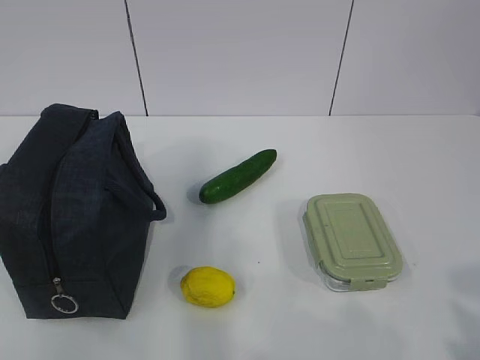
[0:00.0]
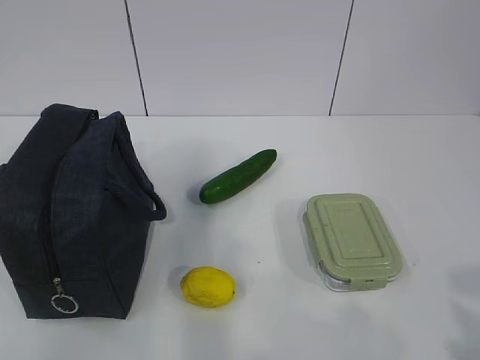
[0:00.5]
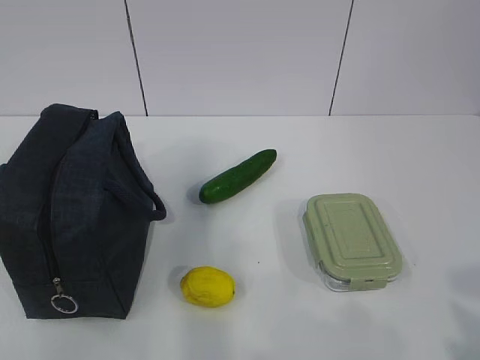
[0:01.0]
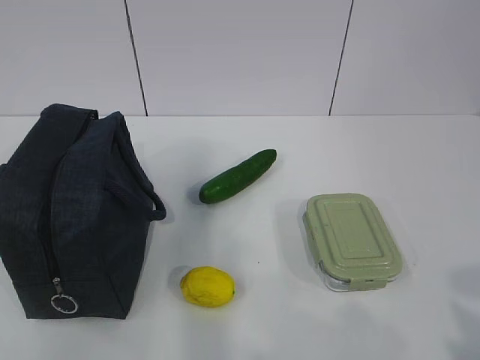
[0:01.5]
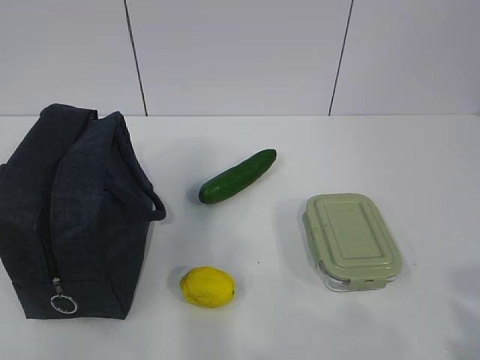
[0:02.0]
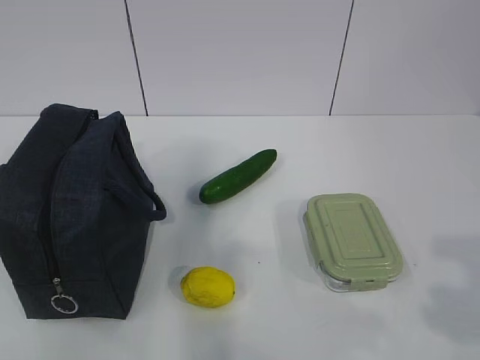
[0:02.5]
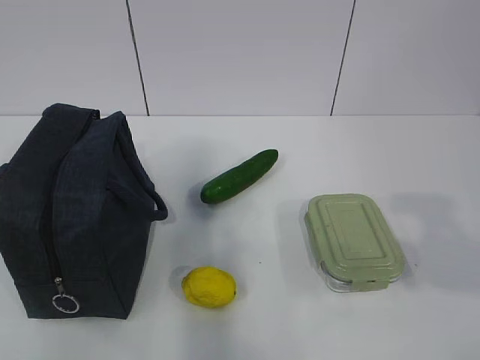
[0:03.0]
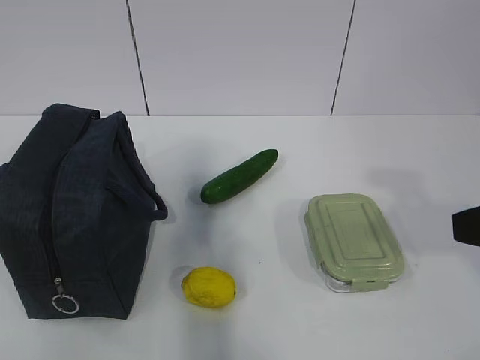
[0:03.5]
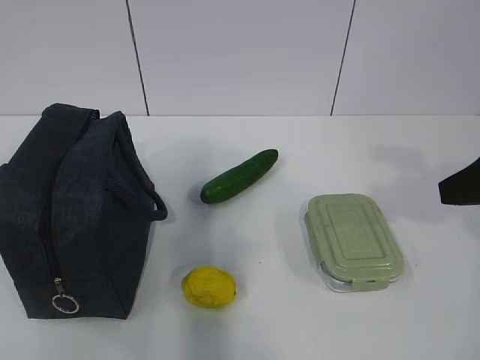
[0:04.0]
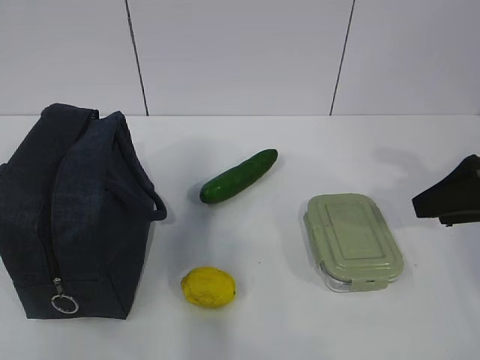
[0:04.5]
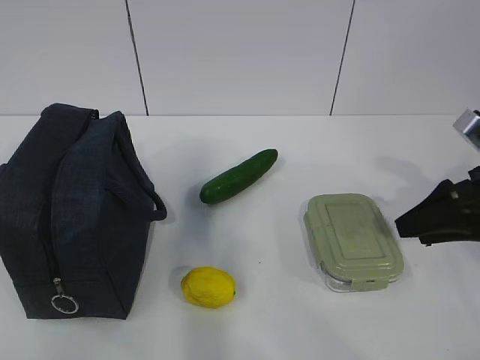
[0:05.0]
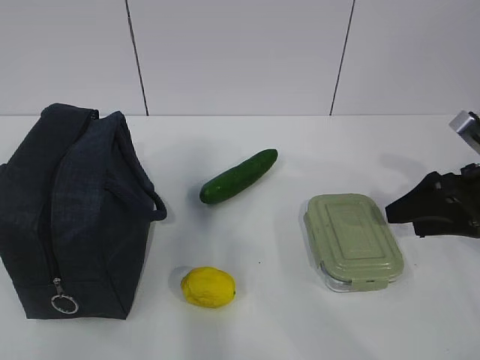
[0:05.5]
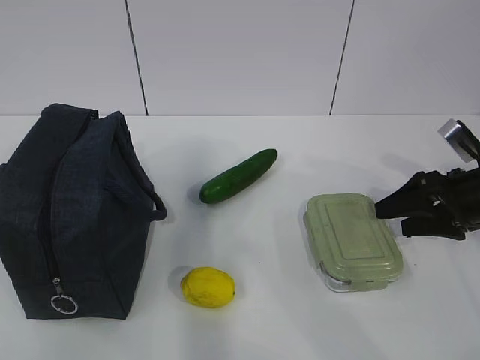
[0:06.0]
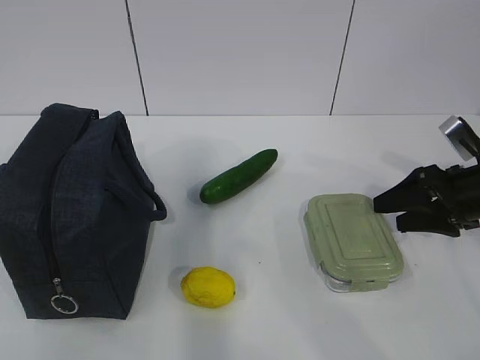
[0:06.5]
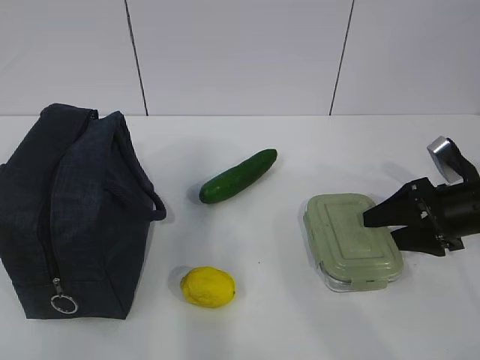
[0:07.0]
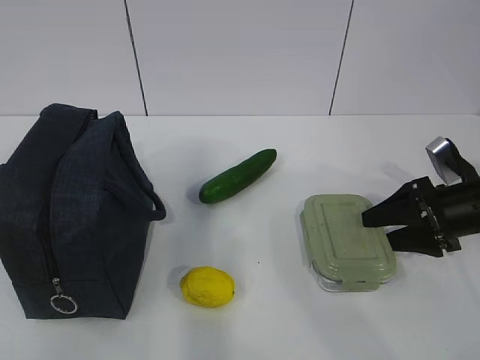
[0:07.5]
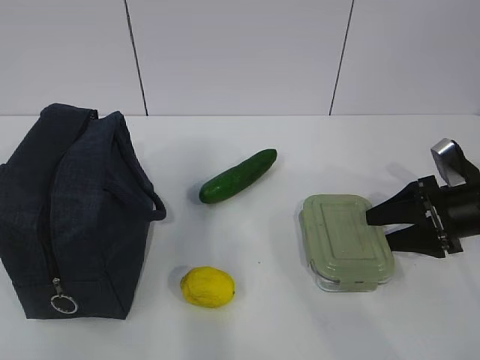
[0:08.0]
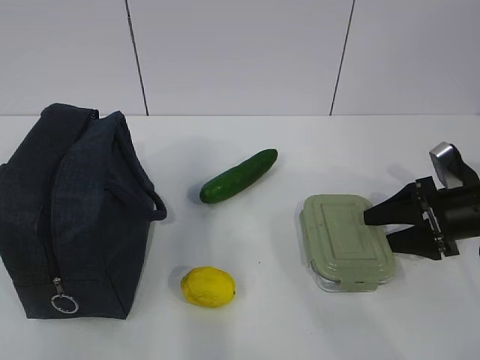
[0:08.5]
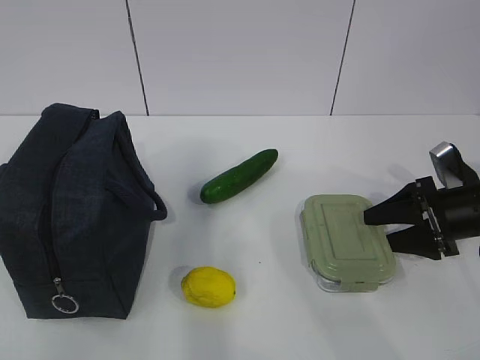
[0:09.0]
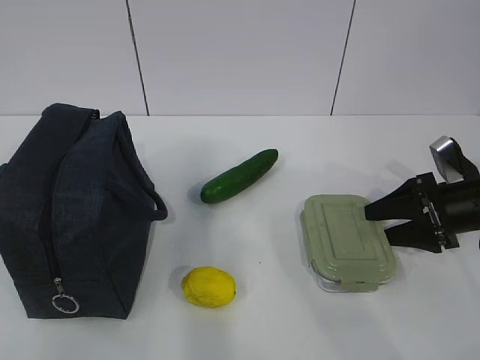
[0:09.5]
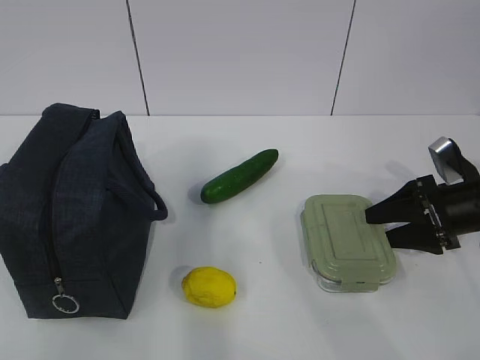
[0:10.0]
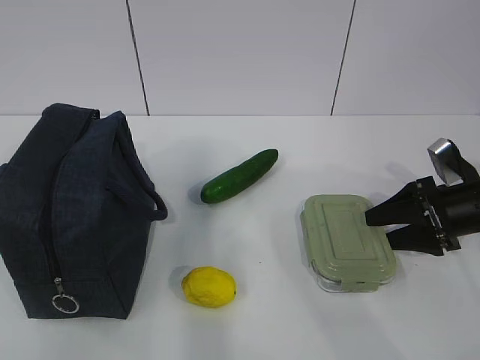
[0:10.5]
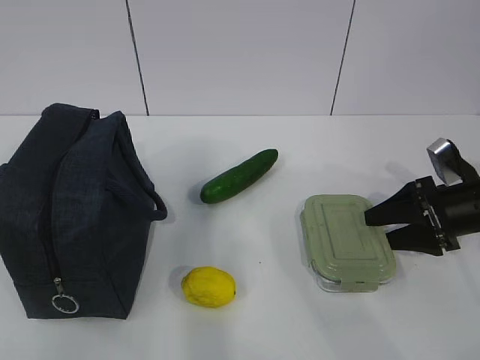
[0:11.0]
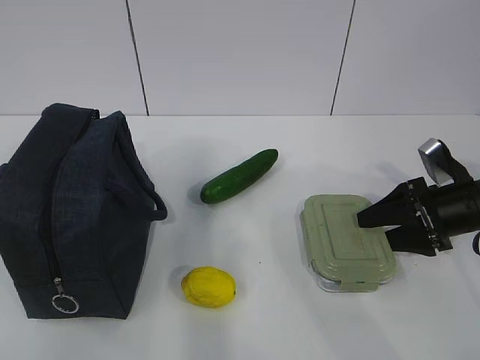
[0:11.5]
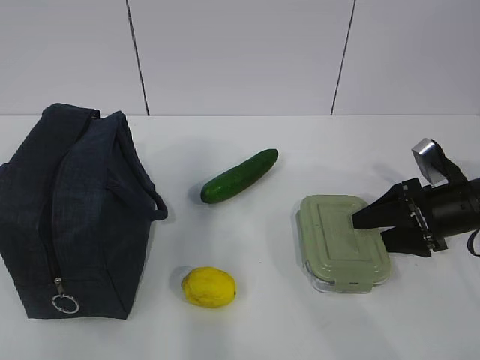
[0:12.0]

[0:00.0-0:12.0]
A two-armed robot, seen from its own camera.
0:02.0 to 0:04.0: The right gripper moves forward, some 20 cm.
0:04.0 to 0:06.0: The right gripper heads downward and forward, covering some 20 cm.
0:06.0 to 0:08.0: There are only small adjustments of the grippers.
0:08.0 to 0:10.0: The two grippers keep their place.
0:10.0 to 0:12.0: The grippers move only a little.

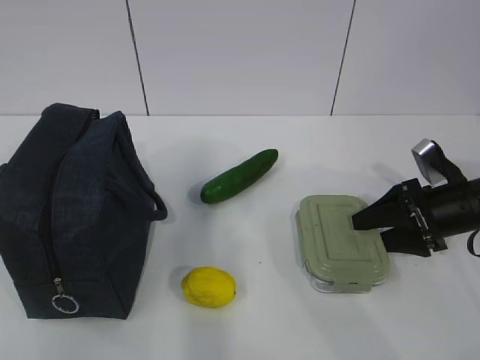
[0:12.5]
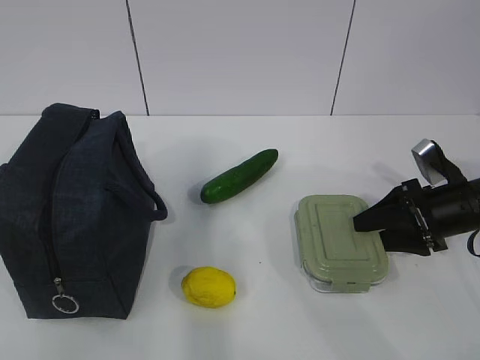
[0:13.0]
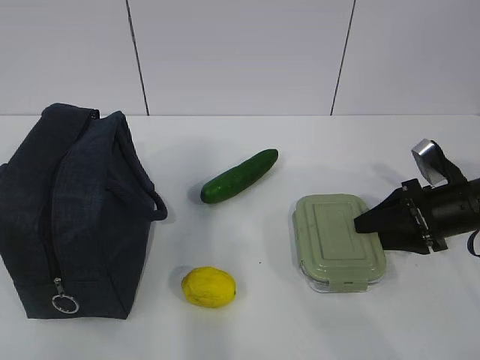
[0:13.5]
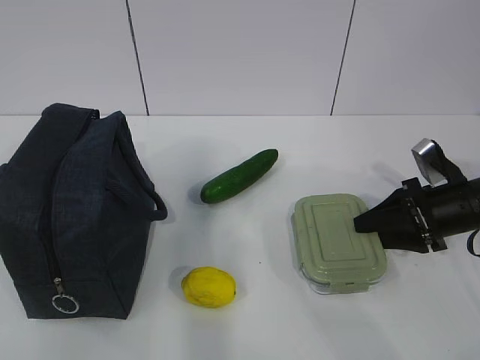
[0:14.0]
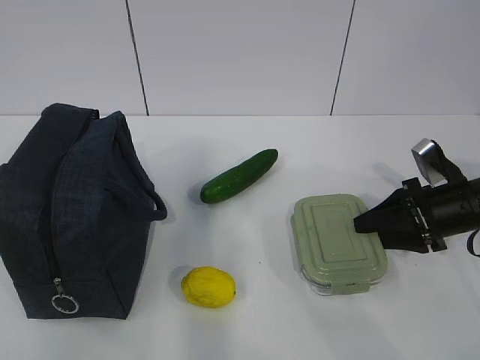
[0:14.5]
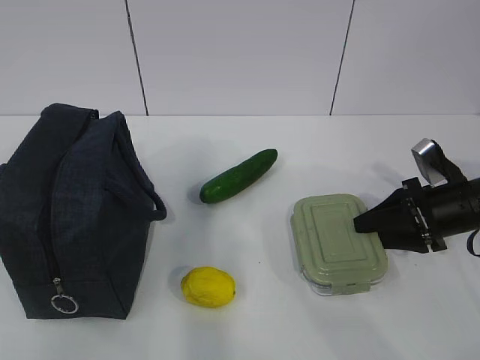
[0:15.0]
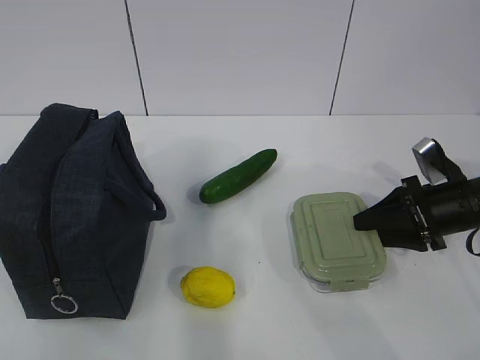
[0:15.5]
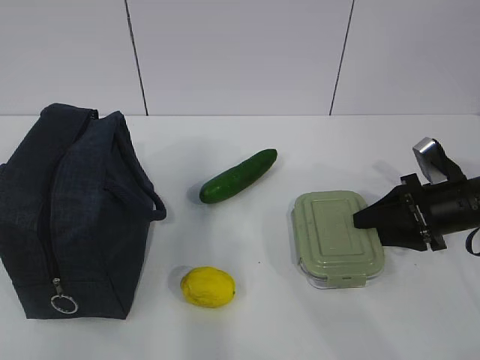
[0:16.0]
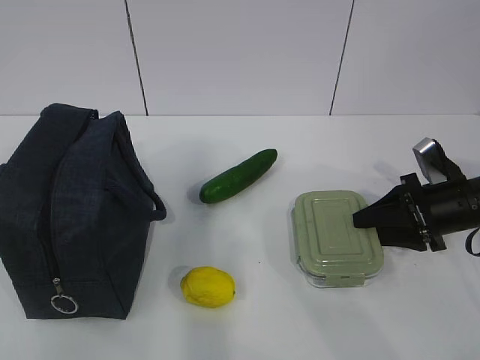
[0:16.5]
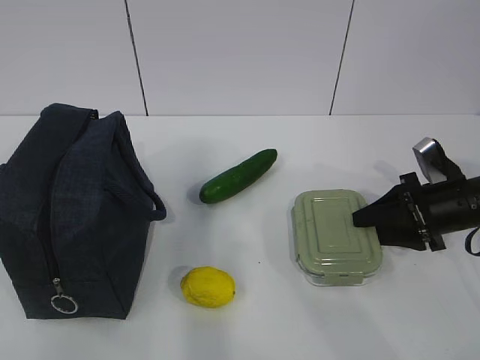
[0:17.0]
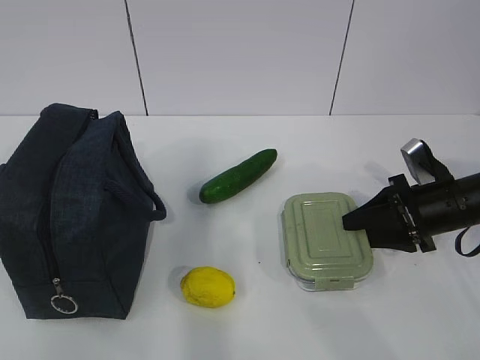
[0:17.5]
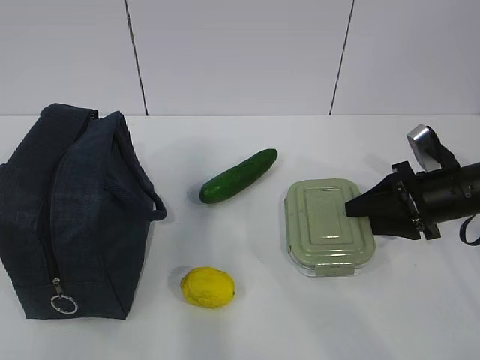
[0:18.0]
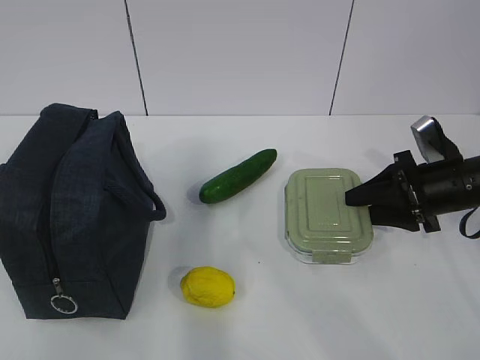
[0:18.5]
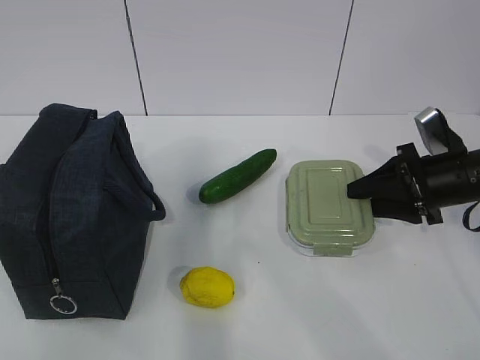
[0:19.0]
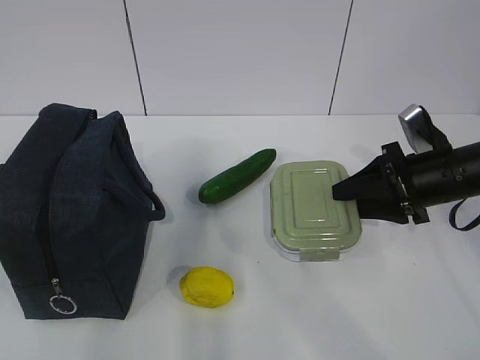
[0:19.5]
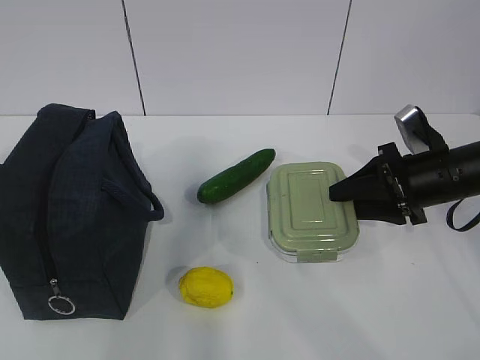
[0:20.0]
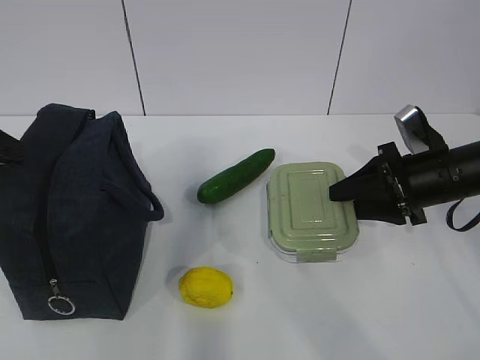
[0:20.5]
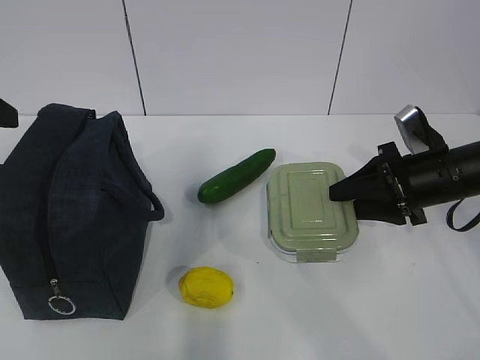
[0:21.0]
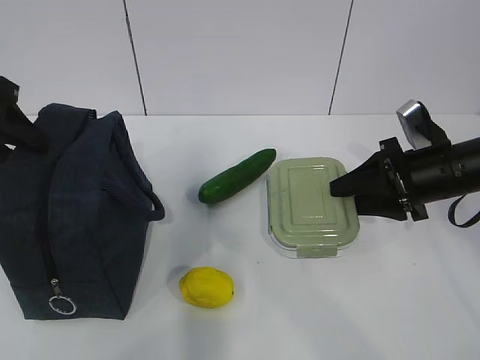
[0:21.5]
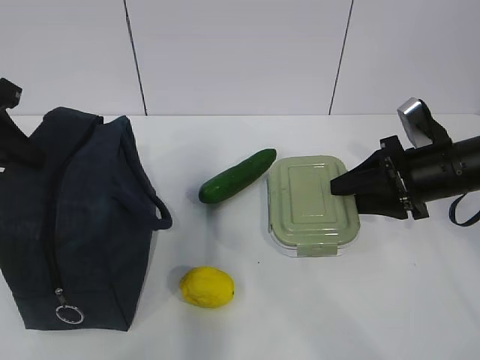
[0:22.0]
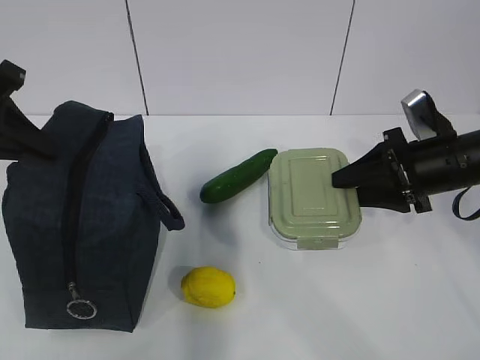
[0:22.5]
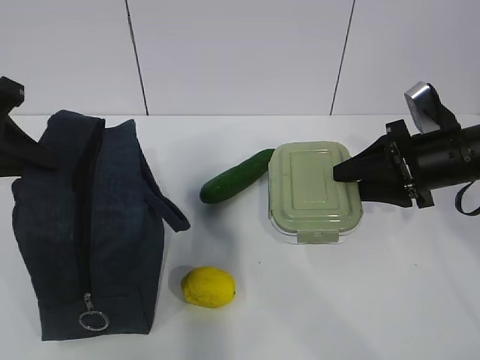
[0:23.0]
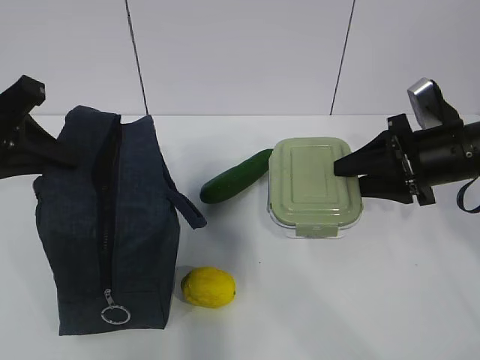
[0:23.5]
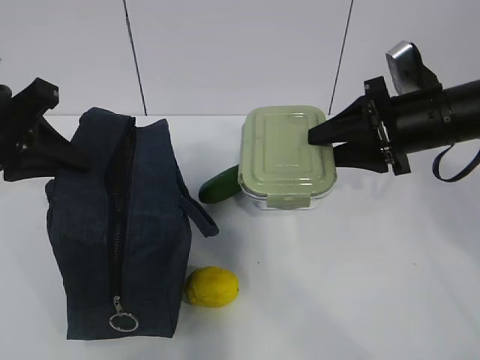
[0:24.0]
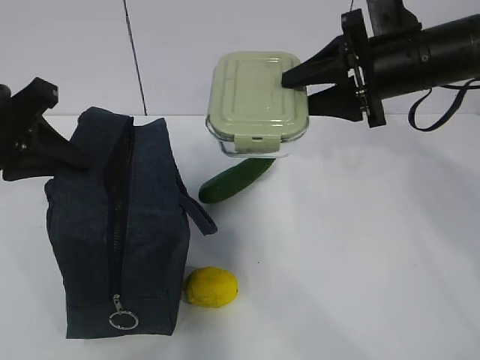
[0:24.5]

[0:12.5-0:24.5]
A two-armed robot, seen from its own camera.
Step, 0:15.0 to 0:22.0: Grab the lunch bag with your left hand.
0:12.5 to 0:16.5: Neither gripper changes place.
0:16.5 to 0:18.5: There are only small adjustments of the grippers.
0:18.5 to 0:20.5: The left gripper travels forward by some 20 cm, and opens.
0:20.5 to 0:22.5: The left gripper heads forward, covering about 10 cm, and closes its fingers.
0:22.5 to 0:24.5: The right gripper goes some 10 cm upward and to the left.

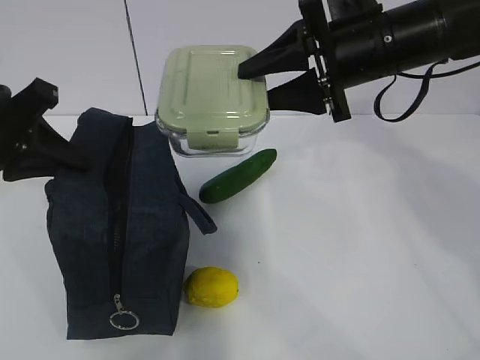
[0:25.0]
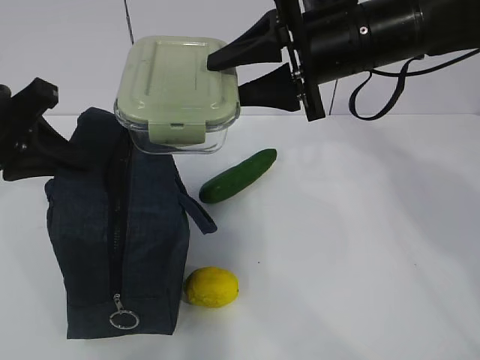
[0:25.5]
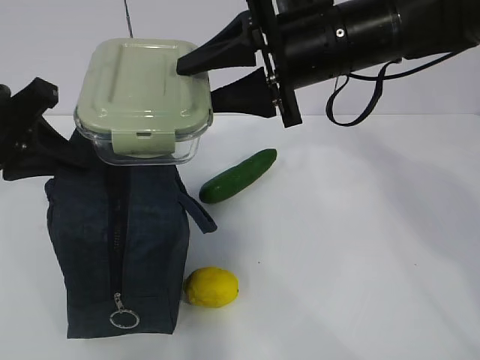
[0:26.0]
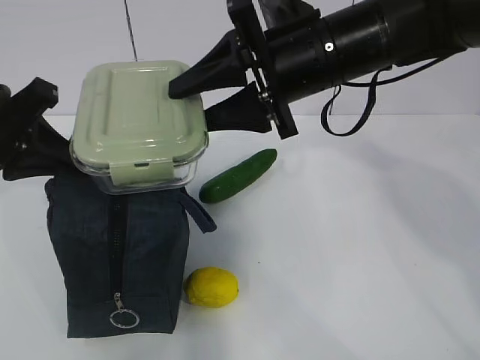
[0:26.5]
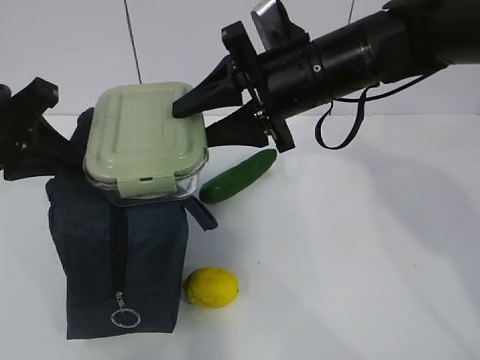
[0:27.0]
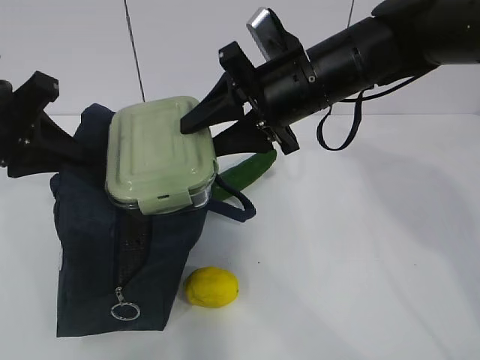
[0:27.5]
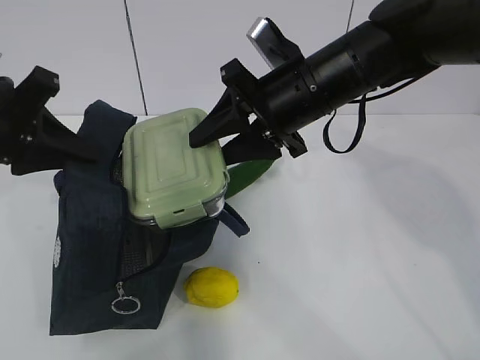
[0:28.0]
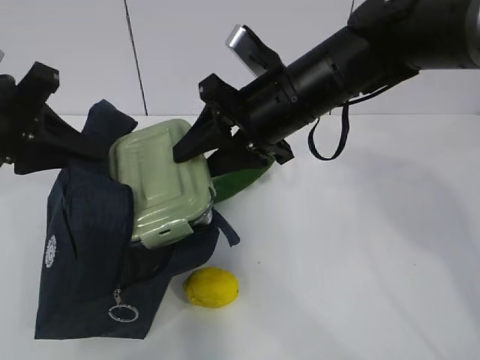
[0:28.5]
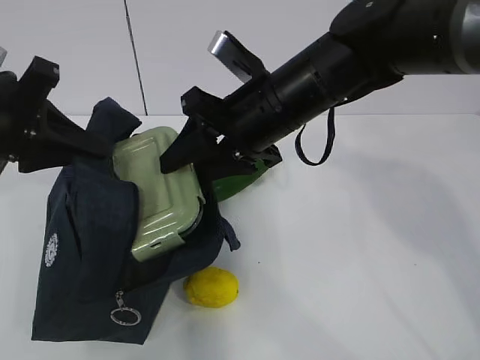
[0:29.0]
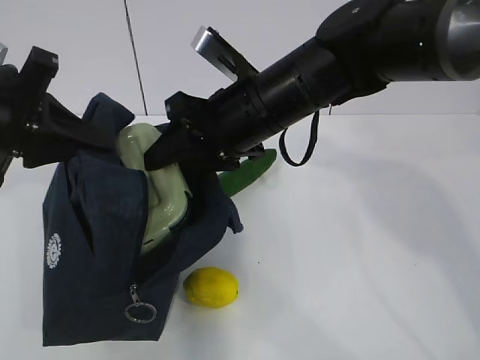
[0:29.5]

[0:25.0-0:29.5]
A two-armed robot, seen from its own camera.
0:25.0 to 0:27.0: The right gripper moves to the left, some 5 cm.
0:27.0 to 0:29.5: The right gripper shifts by approximately 5 cm.
